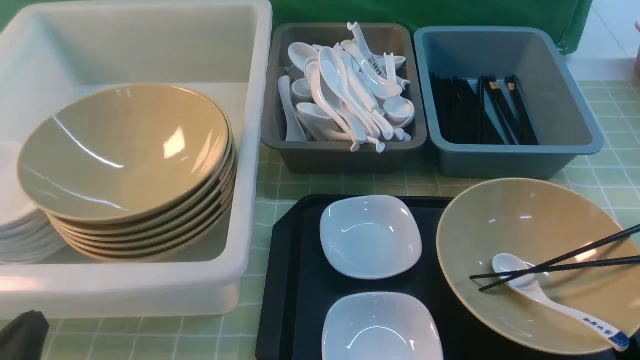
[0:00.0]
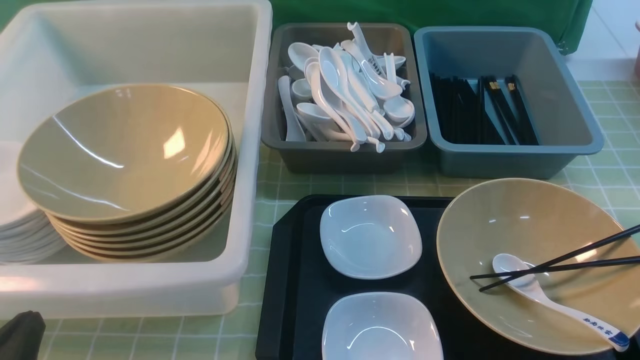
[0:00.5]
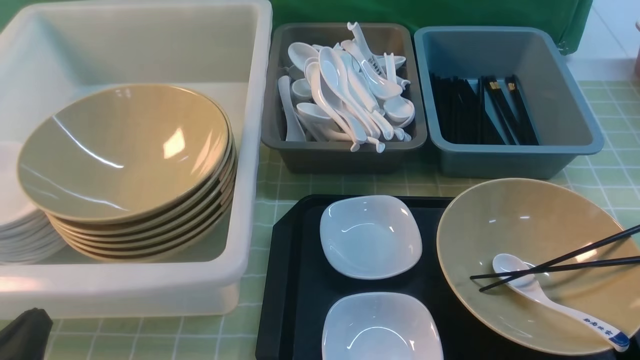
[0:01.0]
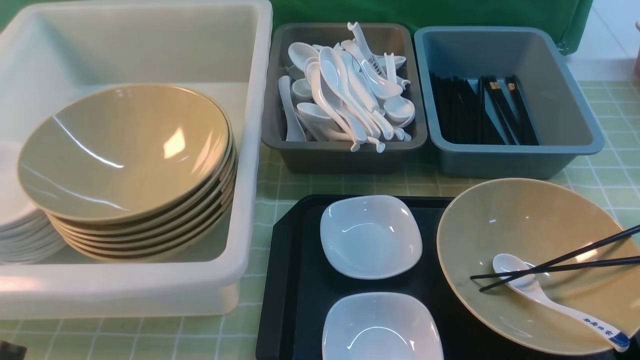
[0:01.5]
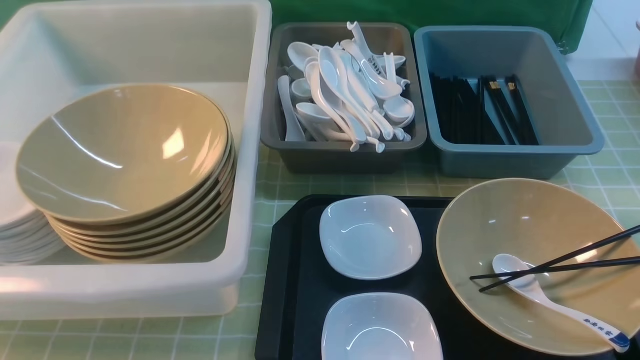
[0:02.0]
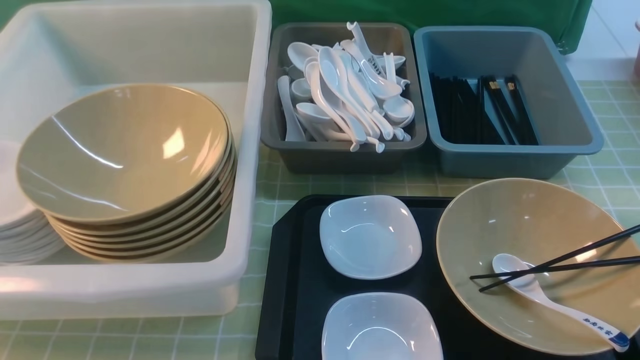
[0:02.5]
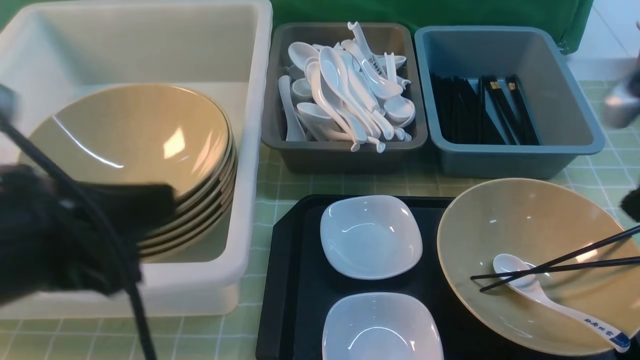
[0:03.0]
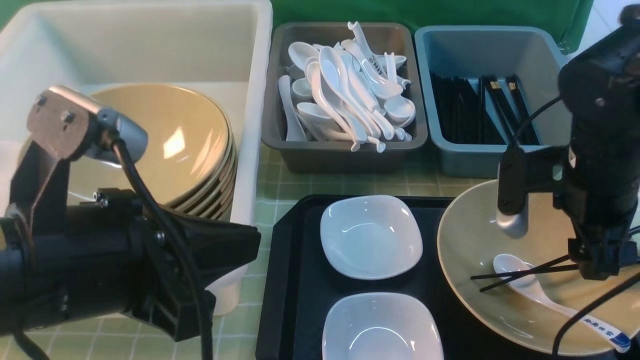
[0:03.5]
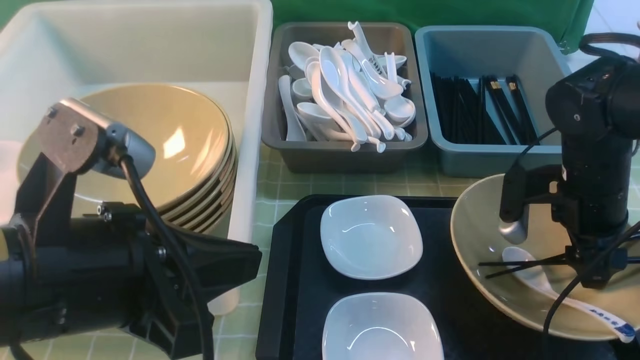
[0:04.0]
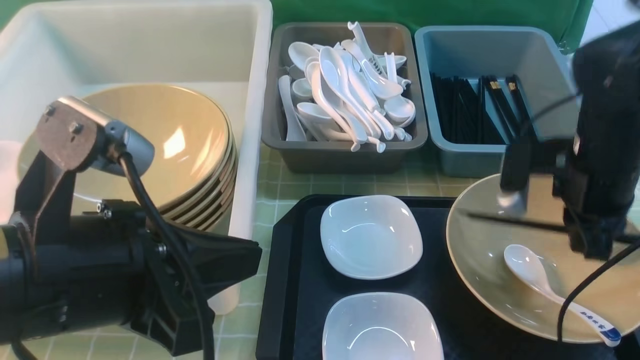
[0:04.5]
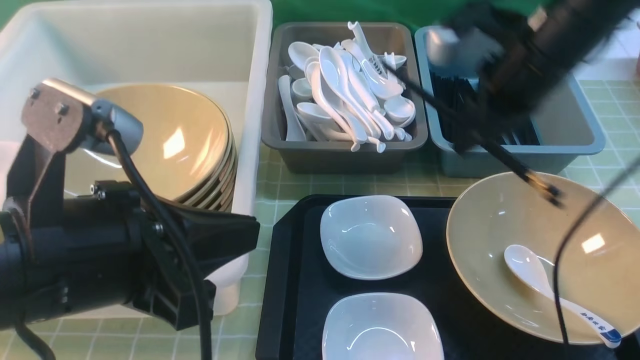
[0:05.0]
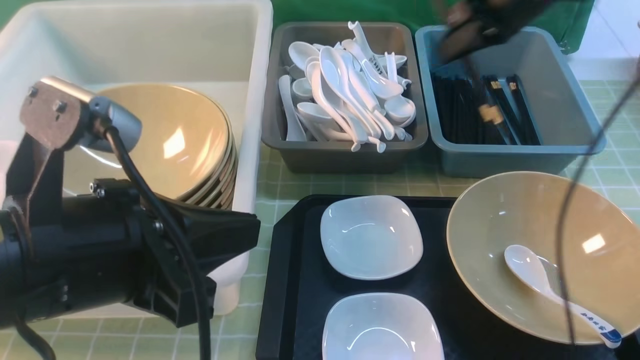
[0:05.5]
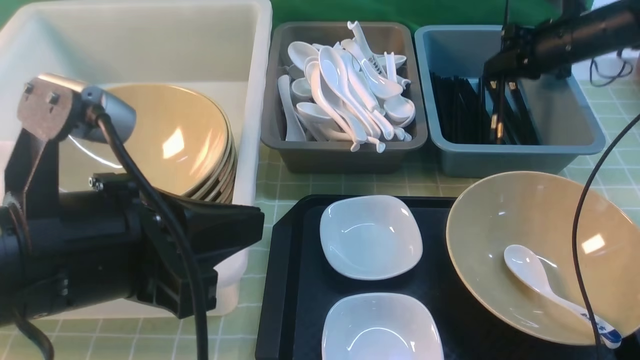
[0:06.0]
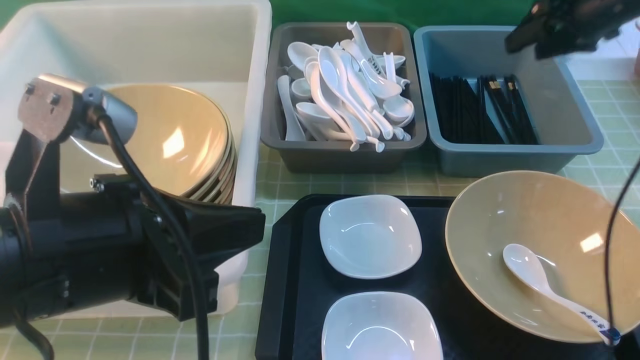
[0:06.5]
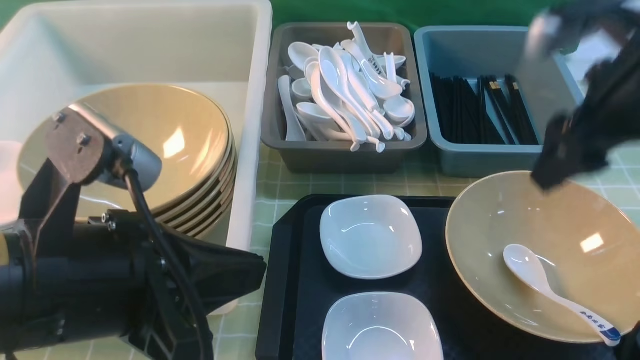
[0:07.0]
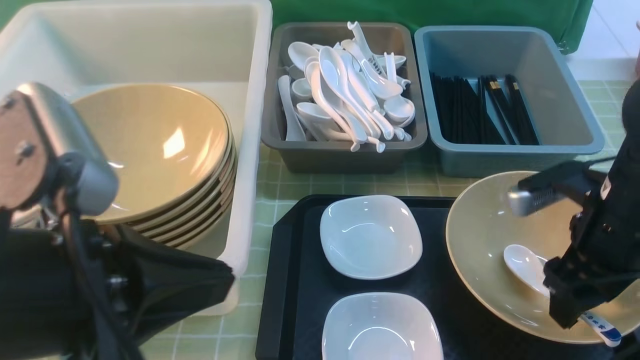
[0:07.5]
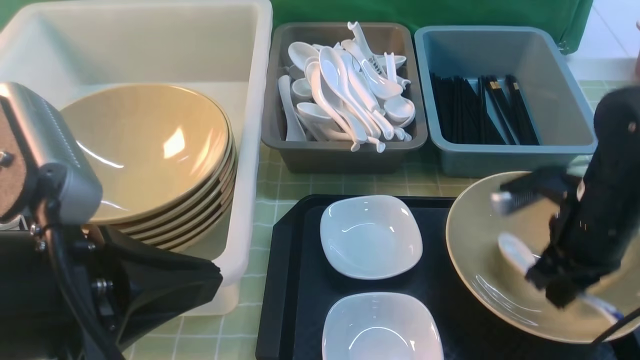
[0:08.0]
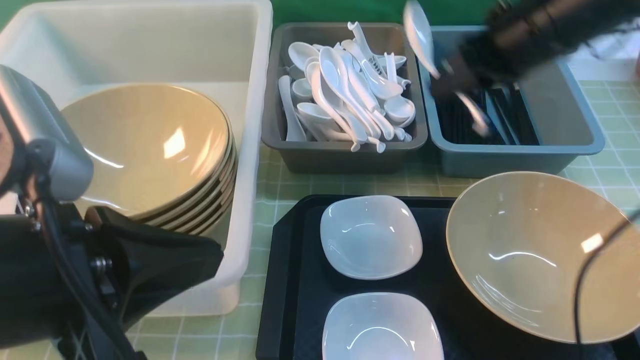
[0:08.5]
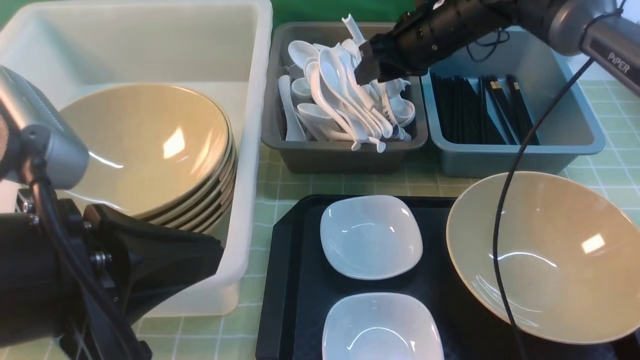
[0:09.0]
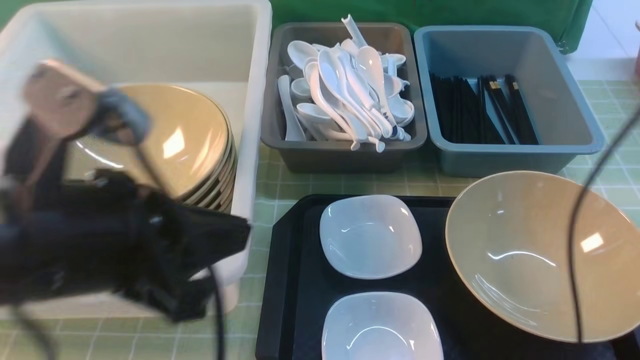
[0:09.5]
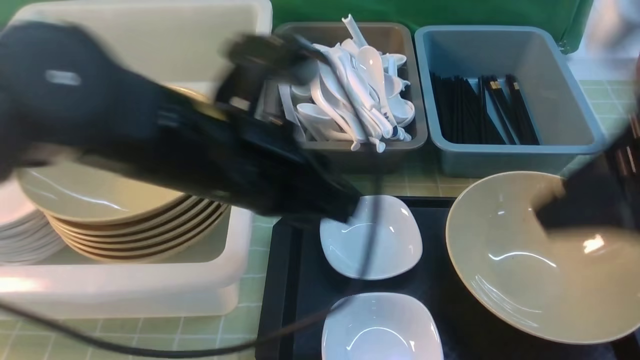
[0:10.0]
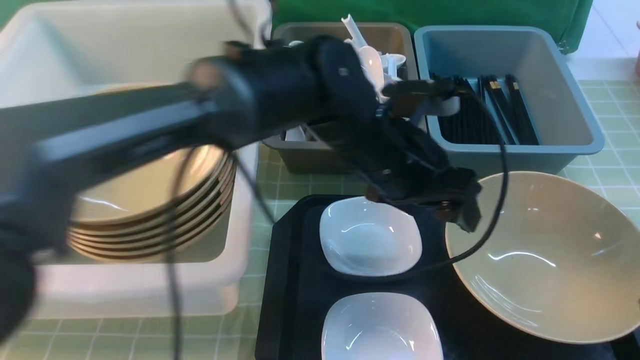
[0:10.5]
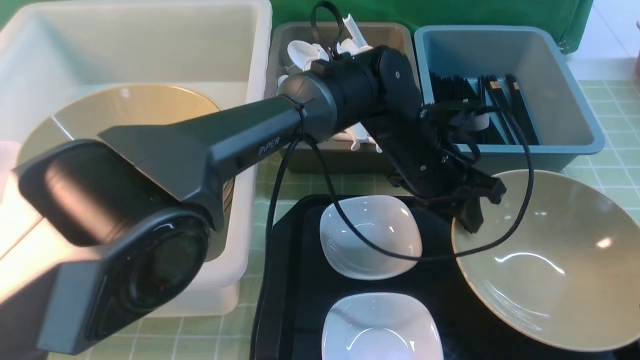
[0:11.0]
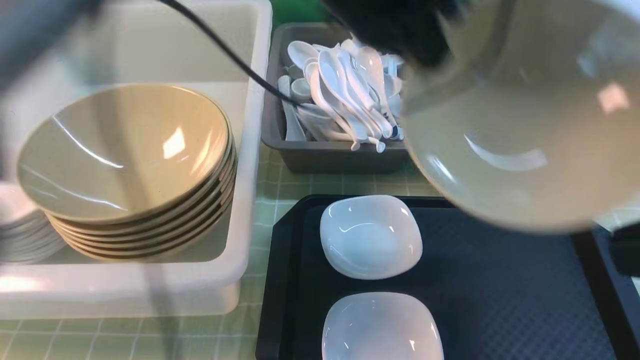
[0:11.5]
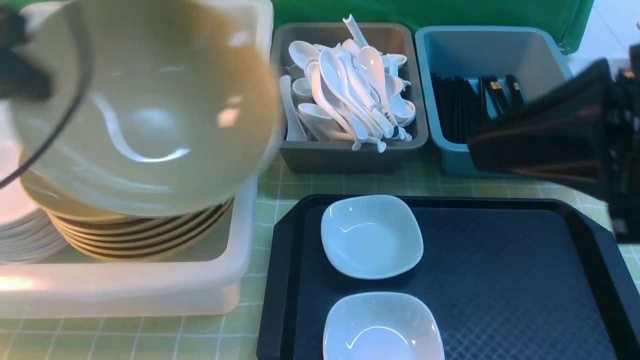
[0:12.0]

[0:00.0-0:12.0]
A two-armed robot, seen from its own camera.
Task of the whole recording: on green table put chopsticks spoon bowls plates into blue grey white boxes.
Step, 0.0 to 4.0 s: use the right arm to grab the chopsticks.
Step, 5.0 to 6.5 s: use the right arm to put the chopsticks into the small storage box on the right.
Step, 7.0 to 8.0 s: use the right arm to grab the soup spoon in the middle.
Step, 8.5 to 9.0 s: use the right arm to put the soup spoon into the small storage box in the middle.
Step, 9.5 to 11.0 s: use the left arm to grab the yellow noodle bowl on the left.
0.0 to 2.0 s: The left gripper is displaced upward by roughly 10 cm.
2.0 to 4.0 s: The right gripper heads forward and downward, covering roughly 30 cm, while the left gripper moves to the right and forward, about 15 cm.
4.0 to 6.0 s: The right gripper shifts approximately 25 cm forward and to the right, and closes.
6.0 to 8.0 s: The right gripper is displaced backward and to the left by approximately 25 cm, and opens and closes again.
8.0 to 10.0 s: The left gripper travels forward and to the right by some 15 cm. The right gripper is displaced upward and backward by roughly 20 cm, and opens its fingers.
10.0 to 12.0 s: The right gripper reaches some 10 cm backward, then returns, and closes; the left gripper shifts approximately 20 cm to the left, and opens, then closes once more.

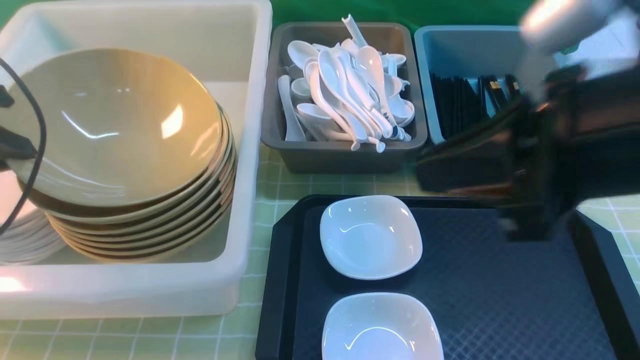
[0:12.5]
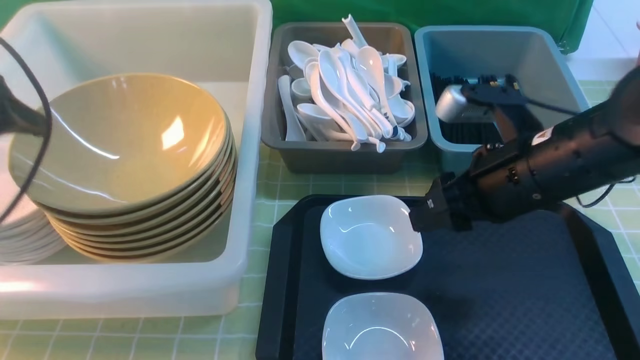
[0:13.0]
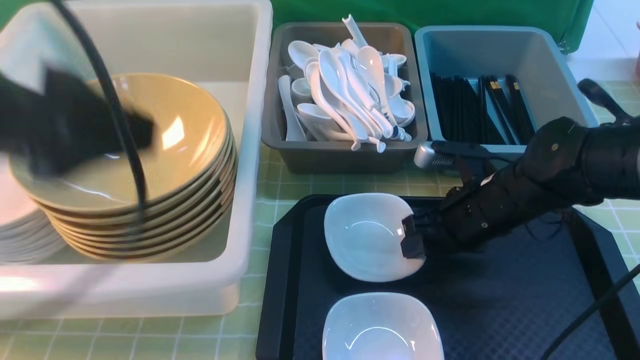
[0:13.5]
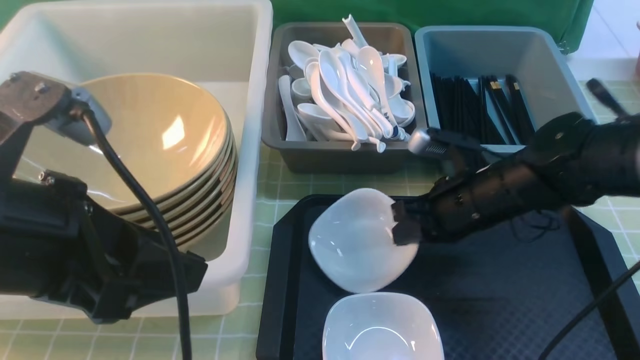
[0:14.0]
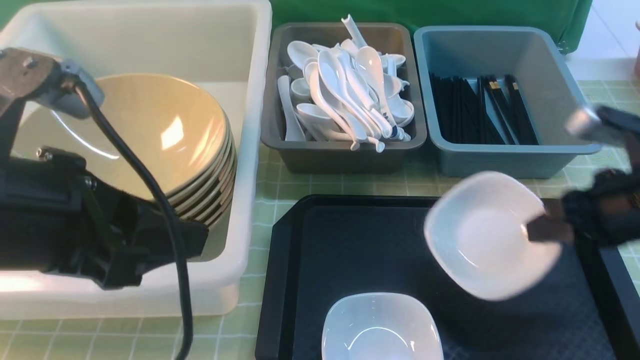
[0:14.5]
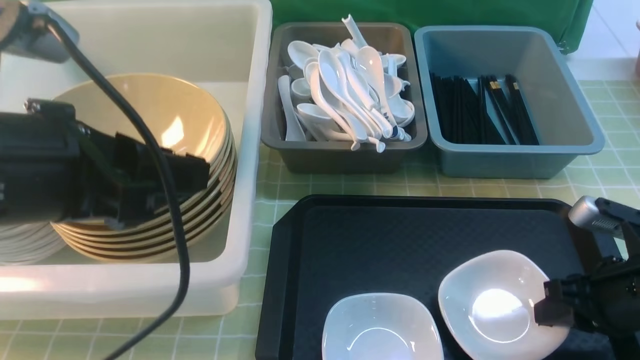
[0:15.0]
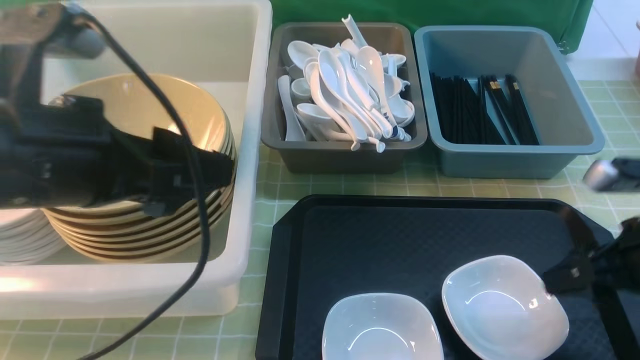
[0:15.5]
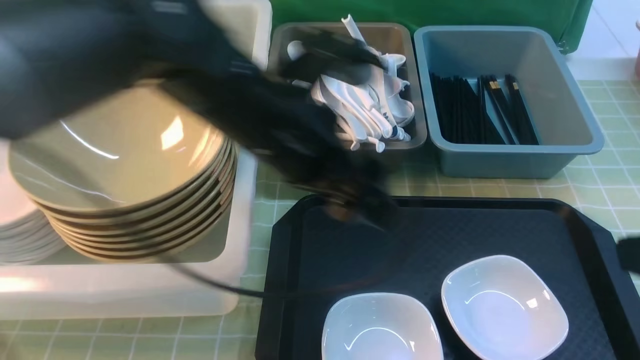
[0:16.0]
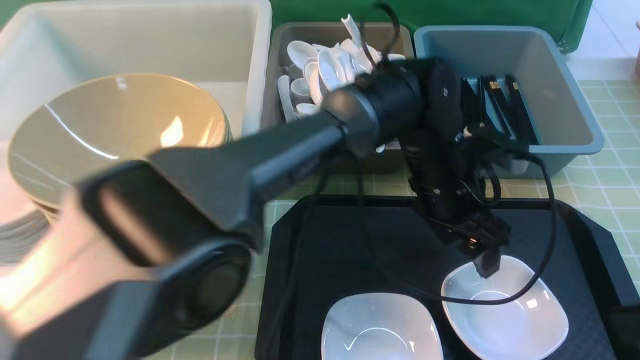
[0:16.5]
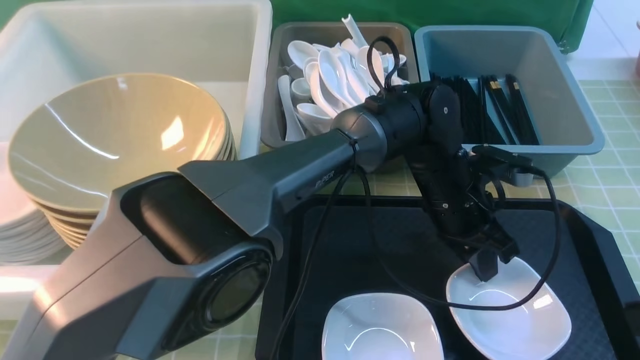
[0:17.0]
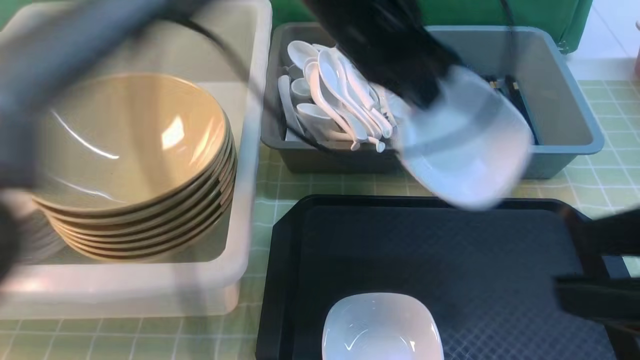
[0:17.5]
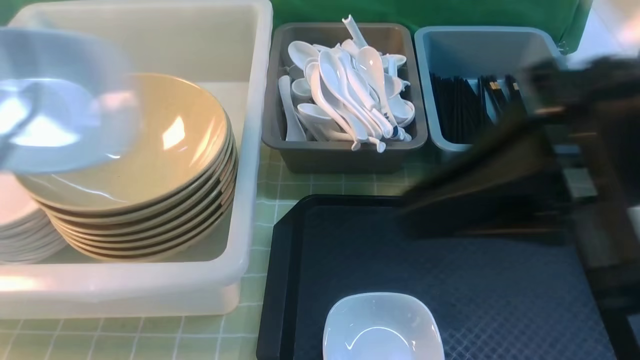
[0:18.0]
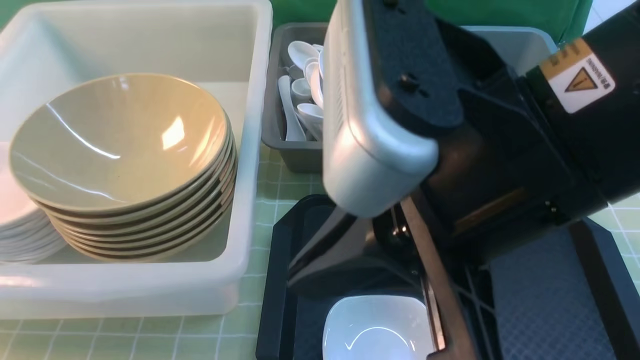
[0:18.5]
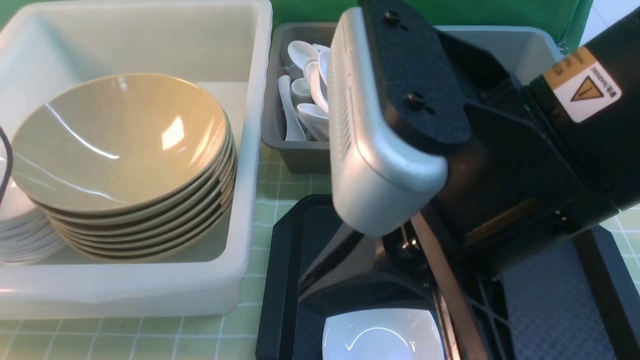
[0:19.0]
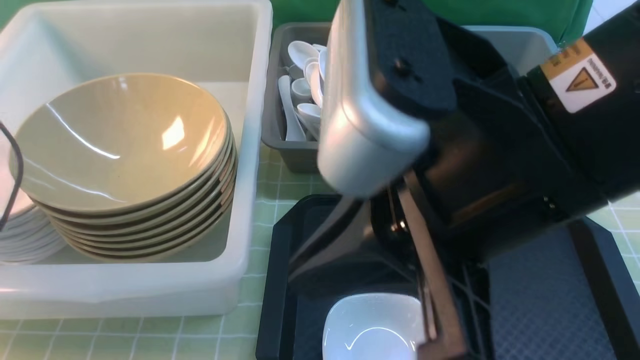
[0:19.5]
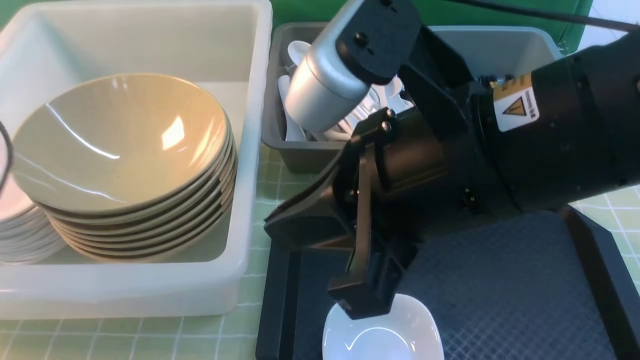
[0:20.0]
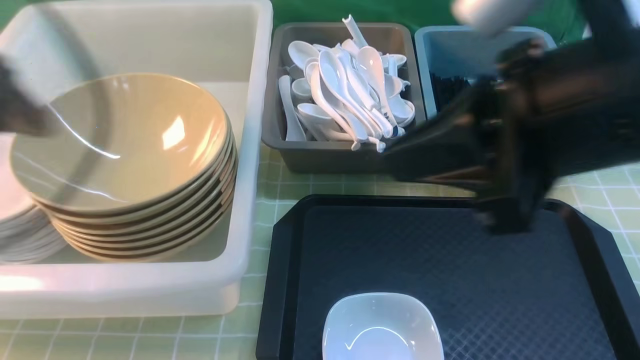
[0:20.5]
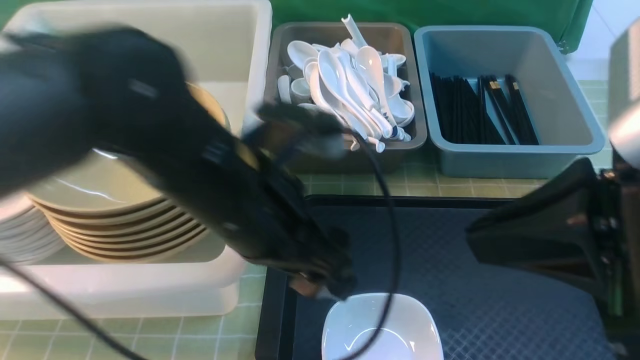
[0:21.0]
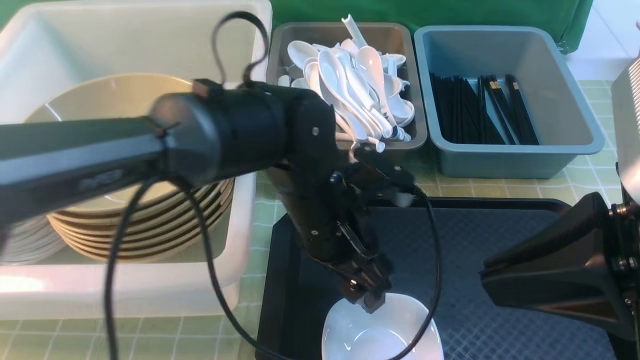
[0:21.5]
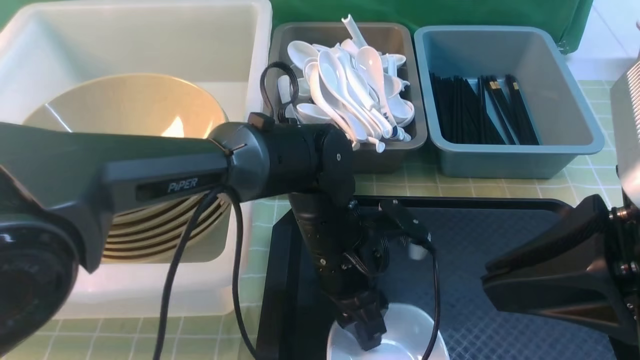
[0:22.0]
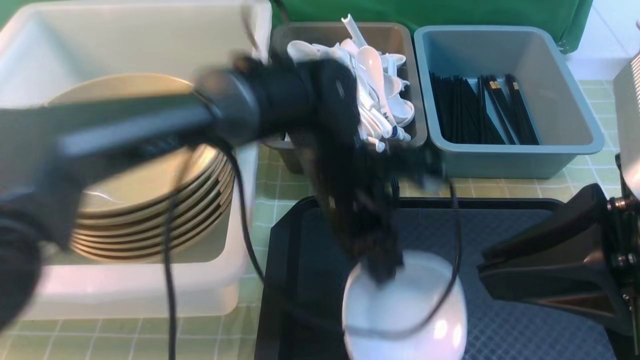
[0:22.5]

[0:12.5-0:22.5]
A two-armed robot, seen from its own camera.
Task of the whole recording: on green table put chopsticks spoon bowls plates into blue grey white boxes.
Step, 14.5 to 15.0 s: use the right arm to put the plate on the tray.
Step, 15.5 to 17.0 s: use the left arm to grab the plate.
Step, 17.5 to 19.5 s: use the left arm to put the plate into the large storage box on the left.
Step, 20.0 to 22.0 s: use the left arm to grab the plate.
12.5 to 14.5 s: The right gripper is displaced downward and to the right by about 20 cm, and opens and closes again. The left gripper travels to the right and backward by about 20 cm, and opens and closes again.
14.5 to 16.5 s: The right gripper heads backward and upward, covering approximately 20 cm, and opens up. Meanwhile the left gripper shifts some 40 cm to the right, forward and downward.
16.5 to 18.5 s: The right gripper is displaced to the left by about 20 cm, and closes its fingers; the left gripper is displaced to the left by some 50 cm, and closes.
18.5 to 20.5 s: The left gripper shifts roughly 10 cm to the right, and opens up. Meanwhile the right gripper shifts about 5 cm to the right.
20.5 to 22.5 s: The left gripper goes roughly 30 cm to the right and downward, and closes up; the right gripper ends up some 5 cm from where it was.
